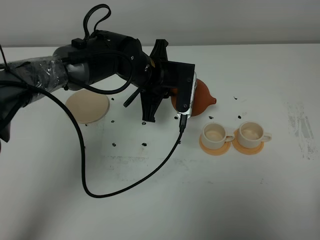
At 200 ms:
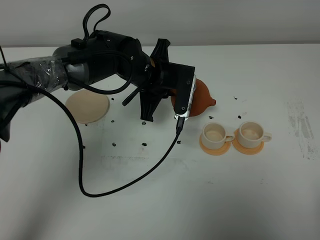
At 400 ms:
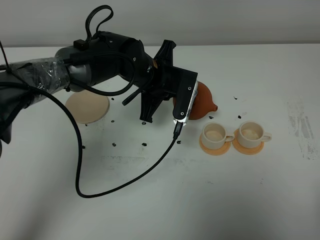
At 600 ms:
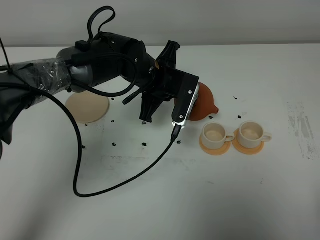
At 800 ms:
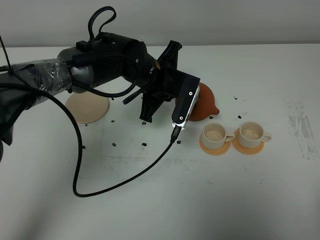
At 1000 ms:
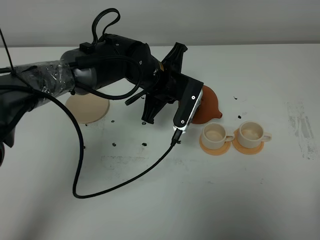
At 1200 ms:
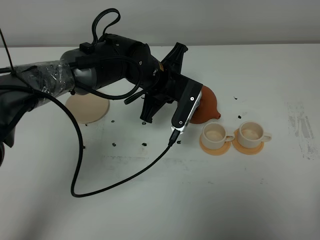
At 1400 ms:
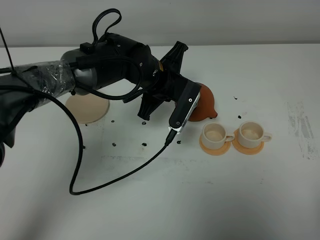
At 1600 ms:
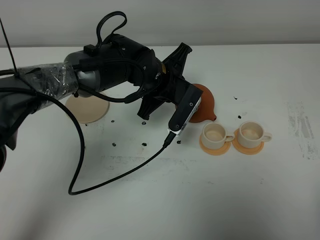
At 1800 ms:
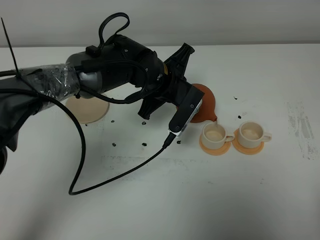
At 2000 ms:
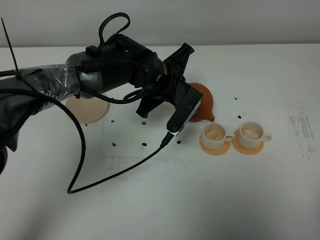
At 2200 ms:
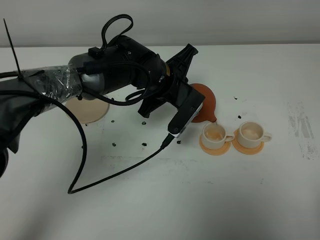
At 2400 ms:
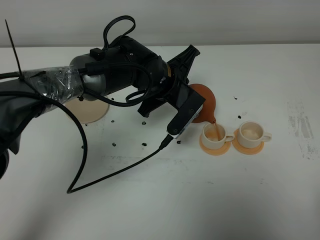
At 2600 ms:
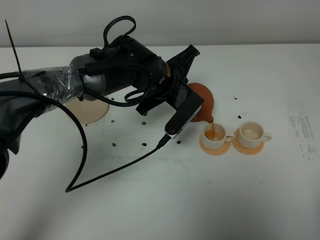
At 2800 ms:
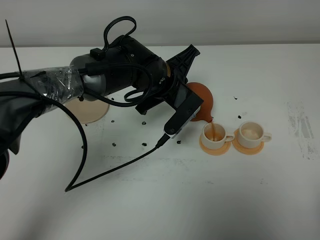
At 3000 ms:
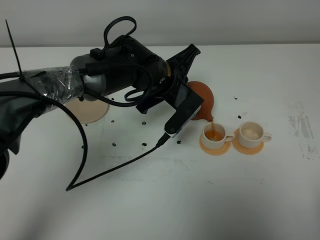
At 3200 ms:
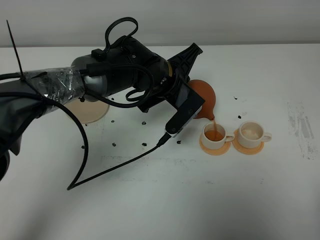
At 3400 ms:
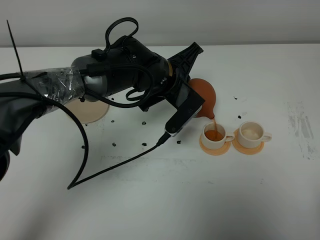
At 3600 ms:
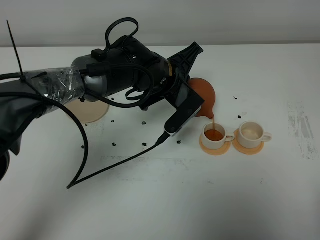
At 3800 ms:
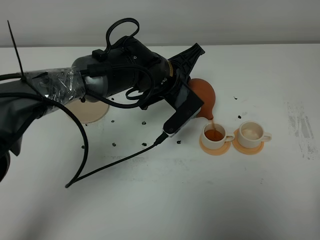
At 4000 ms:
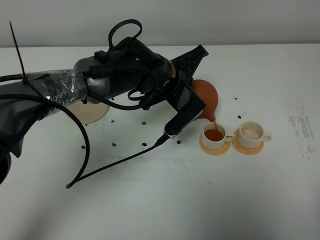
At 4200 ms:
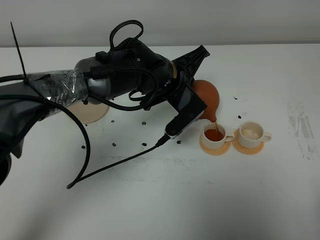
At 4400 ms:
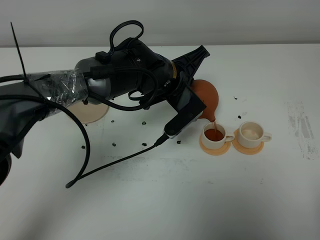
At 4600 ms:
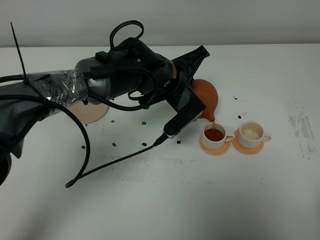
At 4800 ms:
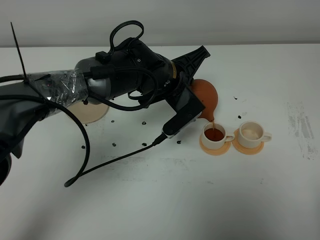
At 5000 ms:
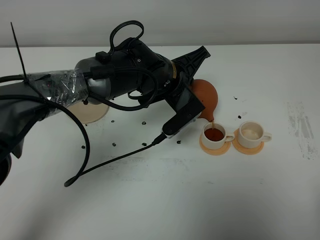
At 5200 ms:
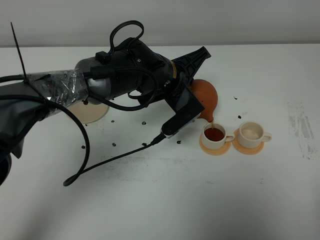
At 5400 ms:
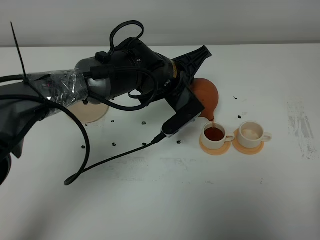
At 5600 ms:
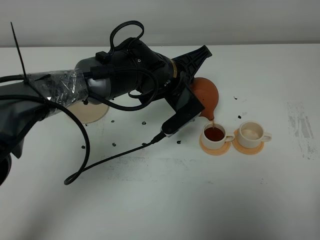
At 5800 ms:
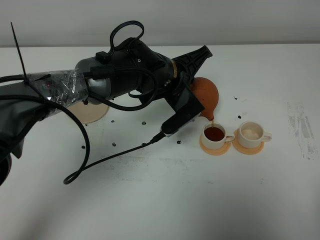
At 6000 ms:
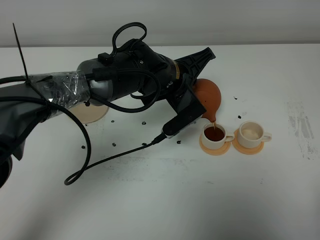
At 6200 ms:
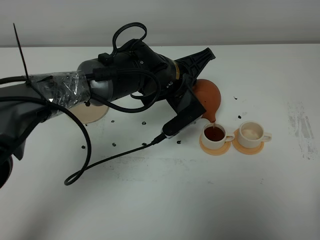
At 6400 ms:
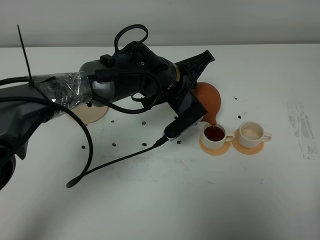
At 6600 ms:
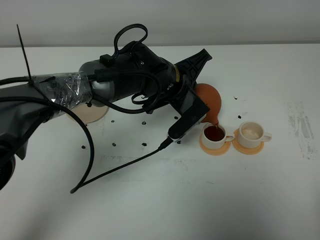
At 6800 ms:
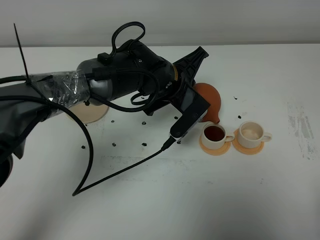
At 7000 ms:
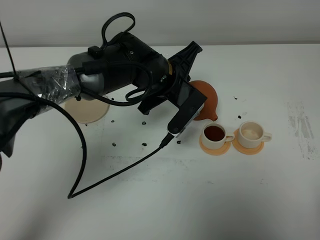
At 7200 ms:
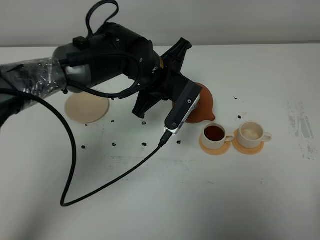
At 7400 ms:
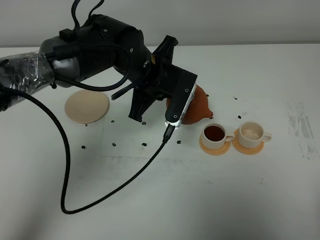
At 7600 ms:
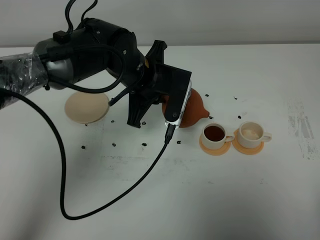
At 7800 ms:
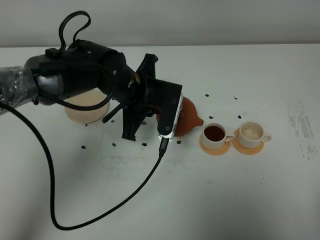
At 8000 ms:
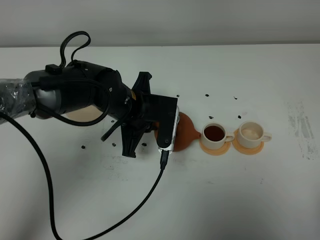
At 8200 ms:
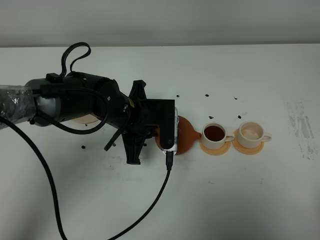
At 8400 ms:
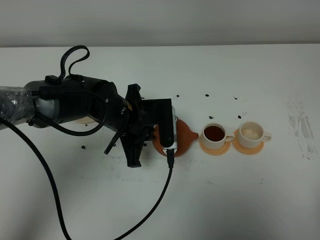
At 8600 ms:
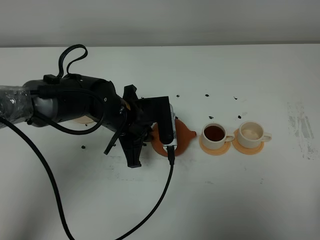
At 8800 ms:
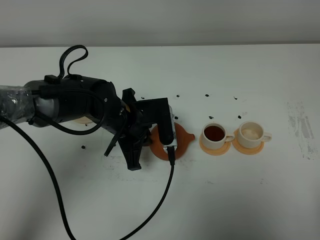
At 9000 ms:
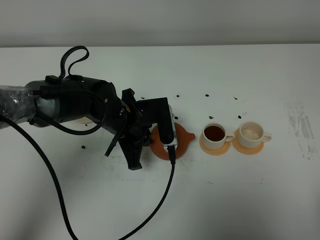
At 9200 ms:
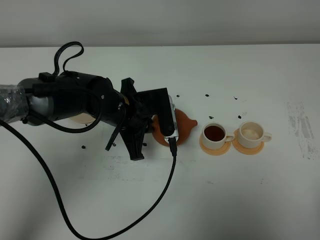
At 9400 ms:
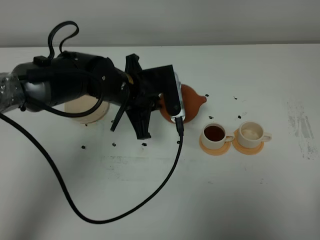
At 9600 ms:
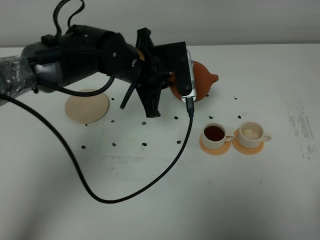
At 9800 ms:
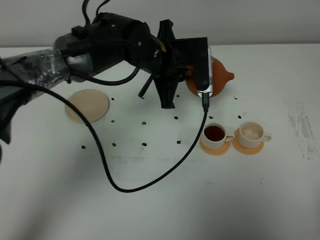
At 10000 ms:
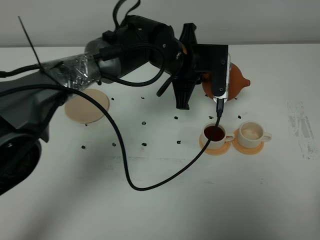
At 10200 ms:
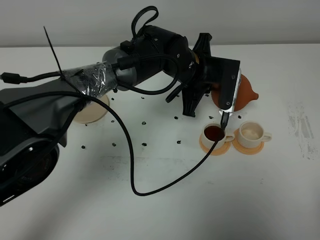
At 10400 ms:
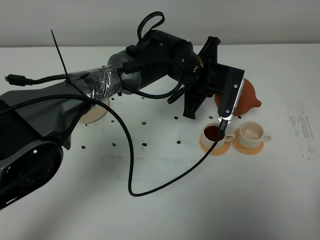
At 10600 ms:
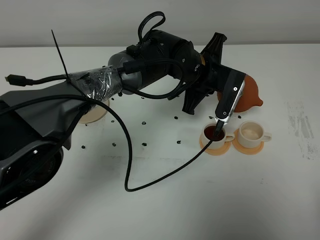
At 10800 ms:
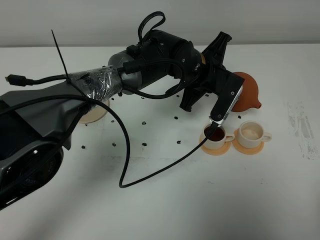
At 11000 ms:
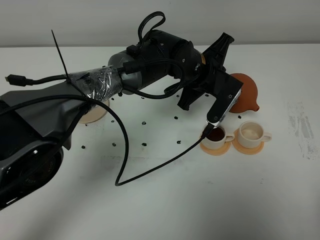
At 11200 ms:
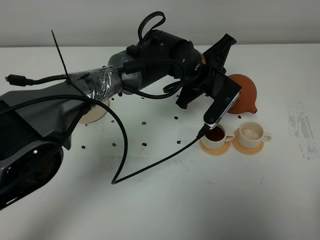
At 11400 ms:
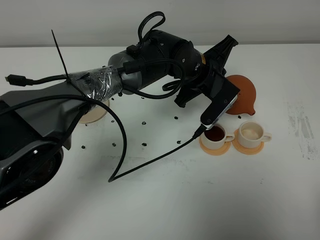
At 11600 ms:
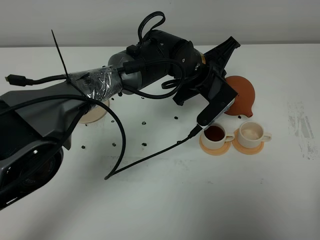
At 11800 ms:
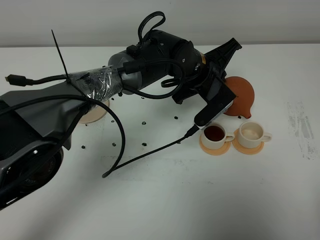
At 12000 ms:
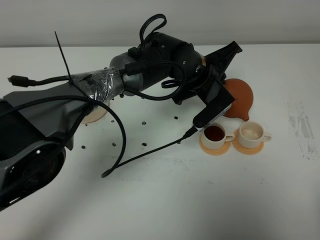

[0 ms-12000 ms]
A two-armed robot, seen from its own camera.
Task of the whole recording: grasp the brown teapot and pour the tea into the two white teacups one by one, put the brown teapot back in its original place.
Step, 0 ms to 7000 ms: Pour tea into the teacup with the left gripper.
1600 ms to 3000 ms: The grippers make only small movements.
3000 ms to 6000 ms: There are only small adjustments of the grippers.
6000 ms to 7600 ms: The left gripper moves to the left, roughly 5 cm.
7600 ms to 9000 ms: The left gripper moves downward, some 5 cm.
9000 ms to 10400 ms: The left gripper goes roughly 15 cm to the right and forward.

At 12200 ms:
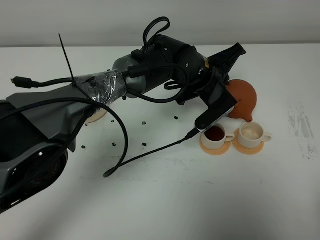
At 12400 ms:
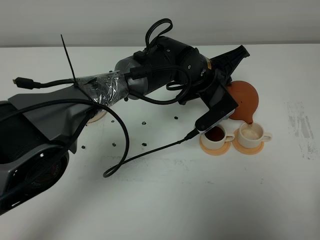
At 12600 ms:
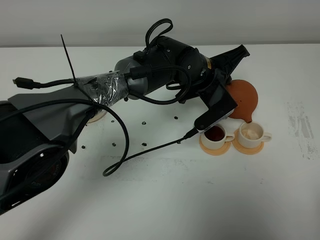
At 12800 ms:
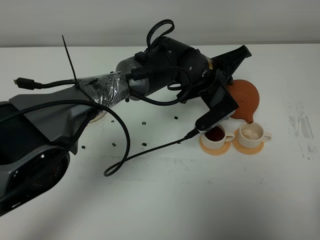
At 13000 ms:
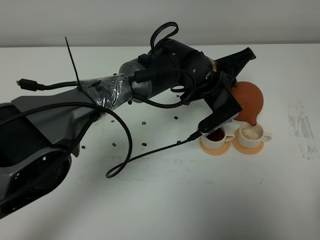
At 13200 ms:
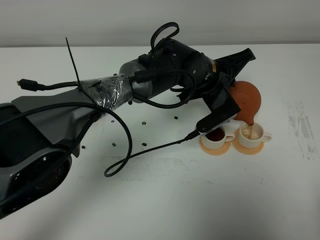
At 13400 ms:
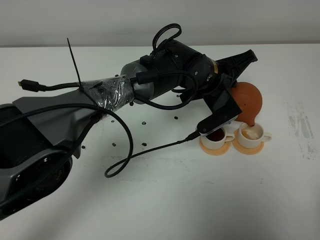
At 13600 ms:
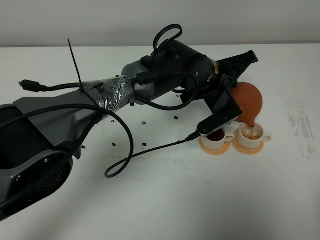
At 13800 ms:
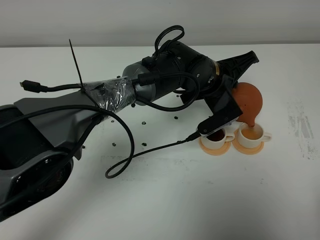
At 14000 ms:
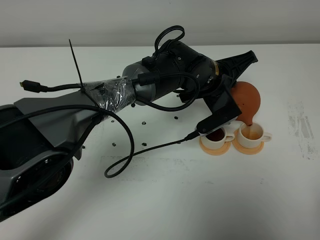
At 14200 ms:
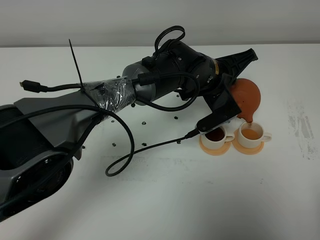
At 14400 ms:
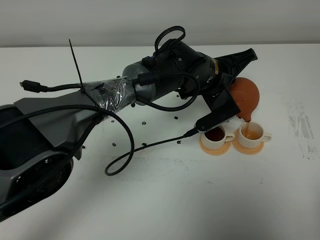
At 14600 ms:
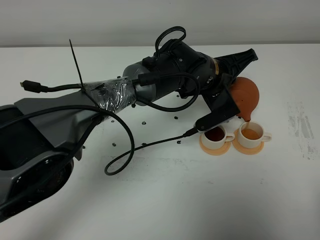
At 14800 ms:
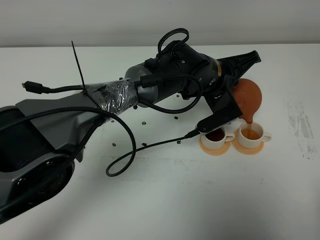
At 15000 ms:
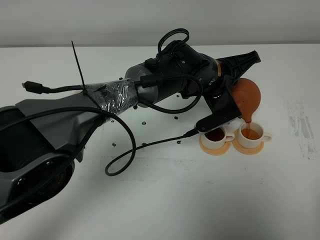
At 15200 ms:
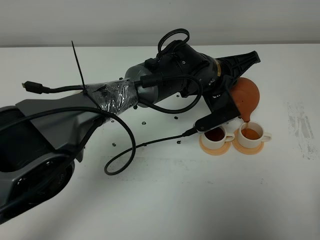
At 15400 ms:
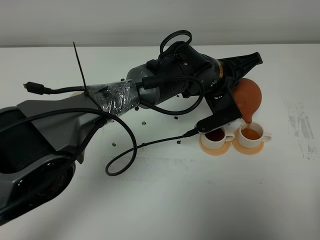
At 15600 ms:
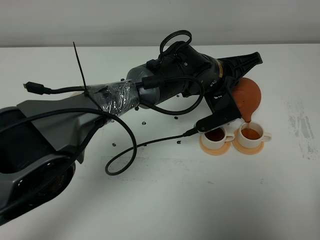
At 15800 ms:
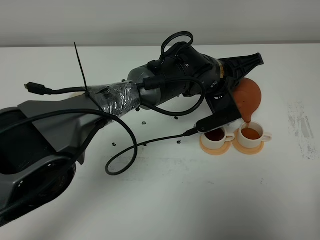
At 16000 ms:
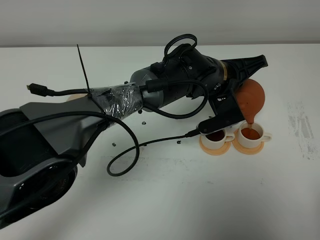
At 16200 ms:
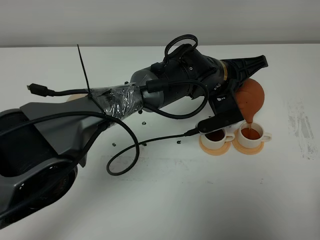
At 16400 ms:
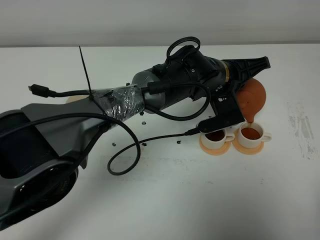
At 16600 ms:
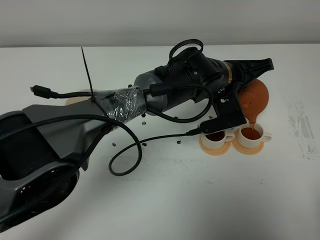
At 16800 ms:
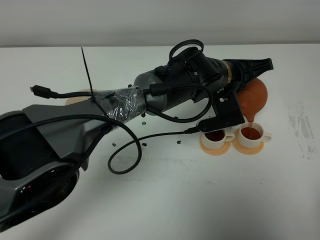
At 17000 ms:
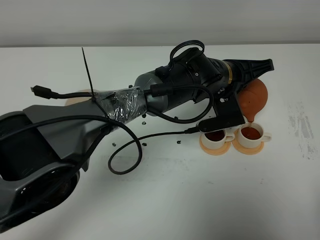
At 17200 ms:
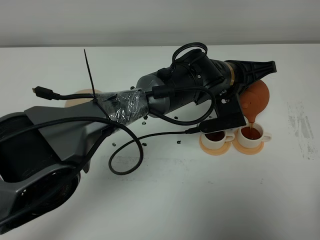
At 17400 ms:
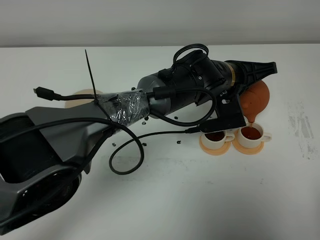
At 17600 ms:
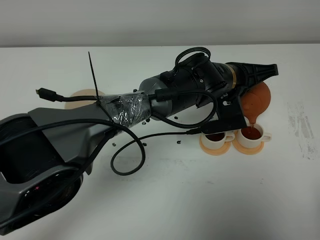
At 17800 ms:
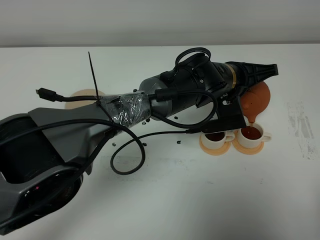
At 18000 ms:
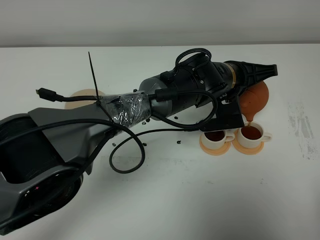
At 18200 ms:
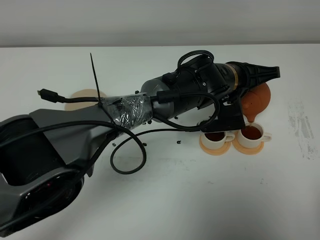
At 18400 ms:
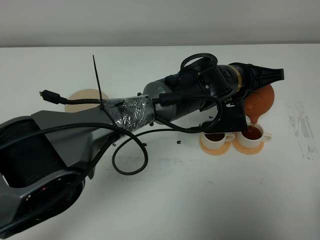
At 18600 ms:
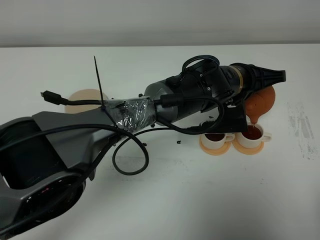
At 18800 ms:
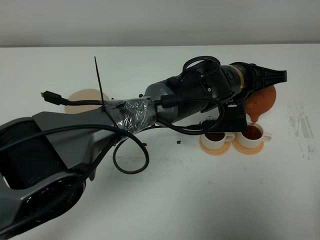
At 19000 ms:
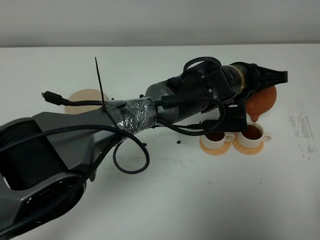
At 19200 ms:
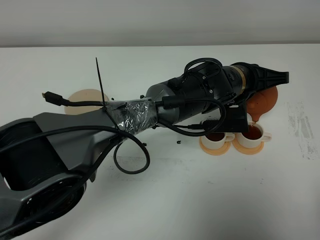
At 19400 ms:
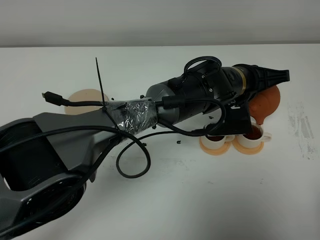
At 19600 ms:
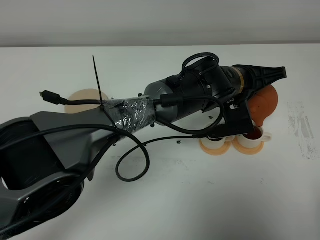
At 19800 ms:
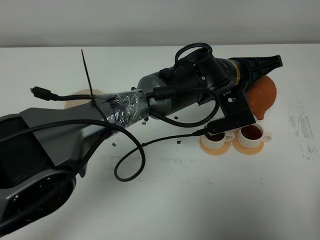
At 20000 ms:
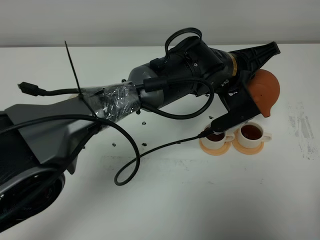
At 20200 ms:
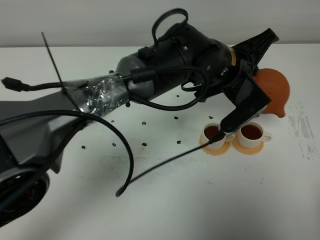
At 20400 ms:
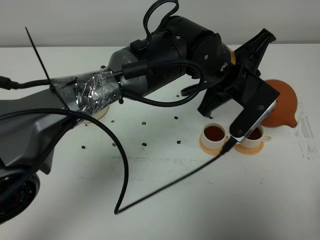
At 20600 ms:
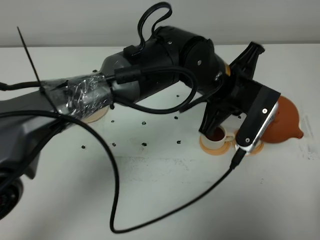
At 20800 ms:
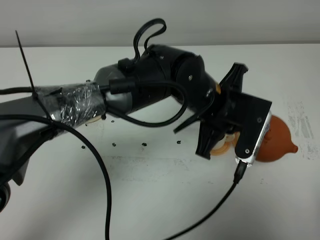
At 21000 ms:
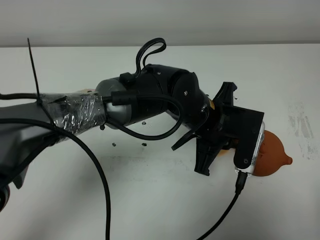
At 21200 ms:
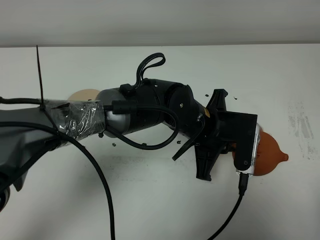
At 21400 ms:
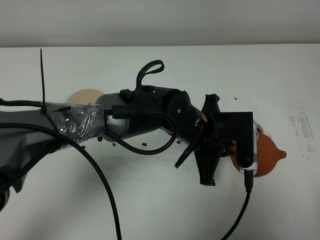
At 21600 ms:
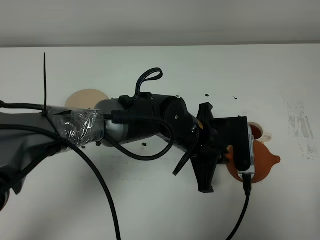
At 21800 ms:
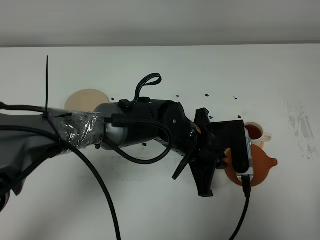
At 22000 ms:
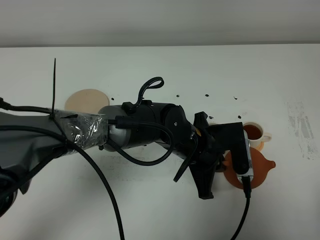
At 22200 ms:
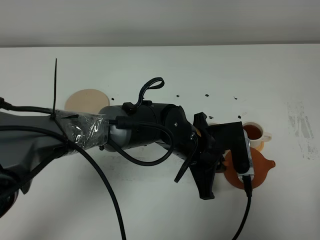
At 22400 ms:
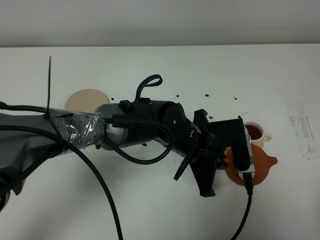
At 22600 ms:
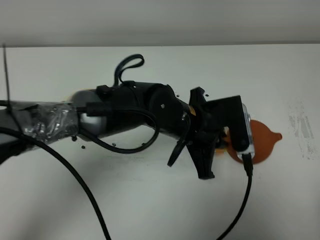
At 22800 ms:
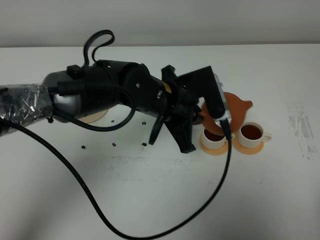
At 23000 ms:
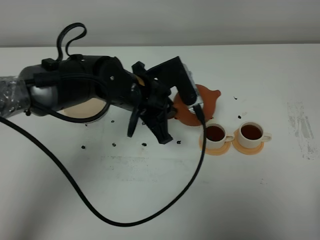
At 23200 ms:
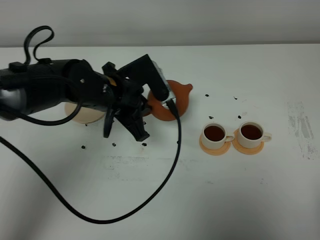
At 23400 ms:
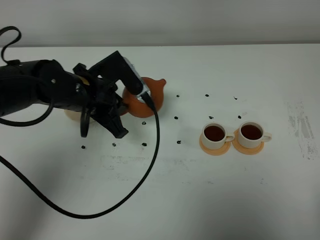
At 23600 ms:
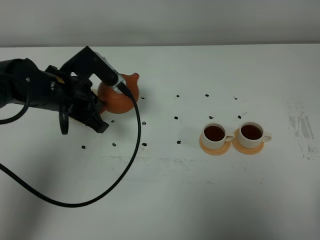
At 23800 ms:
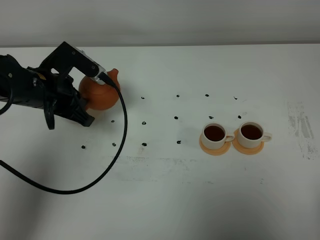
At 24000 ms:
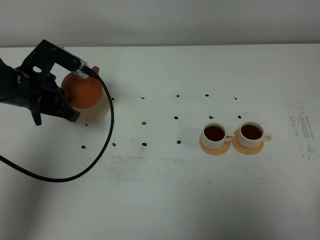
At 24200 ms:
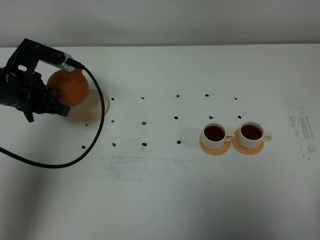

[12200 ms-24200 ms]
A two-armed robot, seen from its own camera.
Task of the whole recording: grasp the brown teapot and pour the tea into the two white teacups one by one, put the brown teapot back in its original place.
Step, 12200 ms to 20200 ms: Pour tea into the teacup with the left gripper.
12200 ms to 15200 ms: There are only small adjustments of the grippers.
15200 ms to 18200 ms: The grippers make only small movements.
18200 ms to 19800 ms: The grippers make only small movements.
19800 ms to 21200 ms: The left gripper heads backward and to the left, covering approximately 10 cm.
21200 ms to 22600 ms: There are only small adjustments of the grippers.
22600 ms to 24200 ms: The left gripper travels to the left by some 30 cm.
